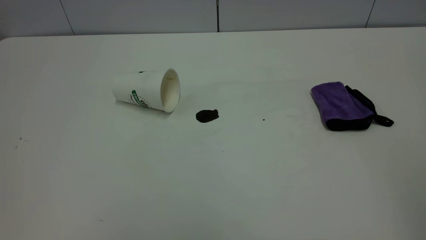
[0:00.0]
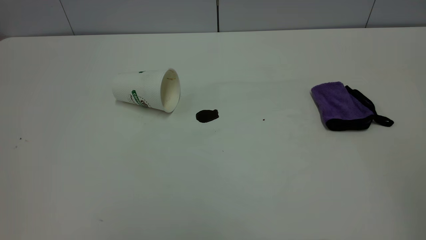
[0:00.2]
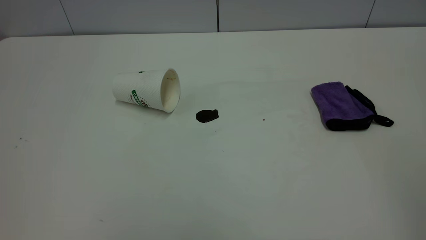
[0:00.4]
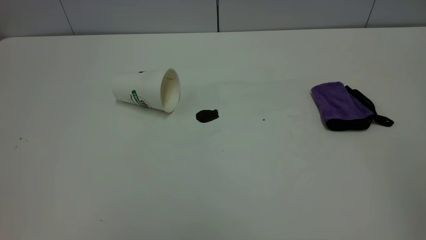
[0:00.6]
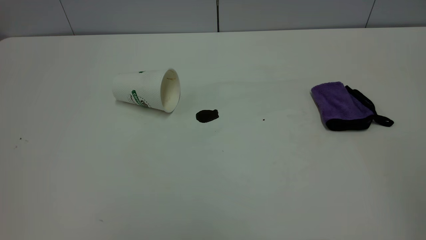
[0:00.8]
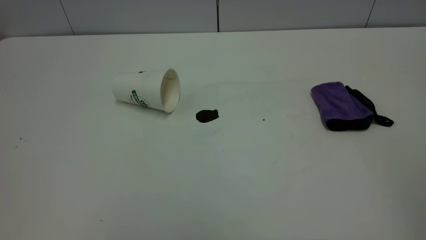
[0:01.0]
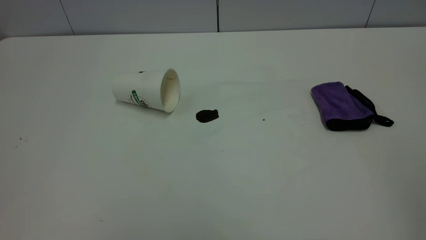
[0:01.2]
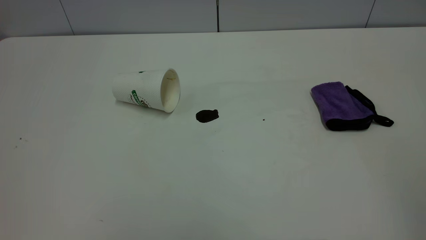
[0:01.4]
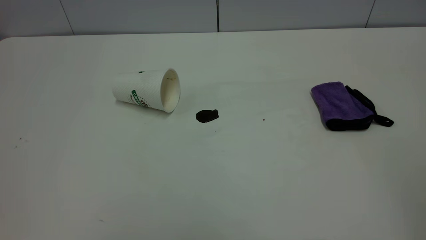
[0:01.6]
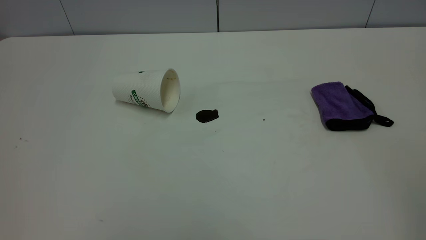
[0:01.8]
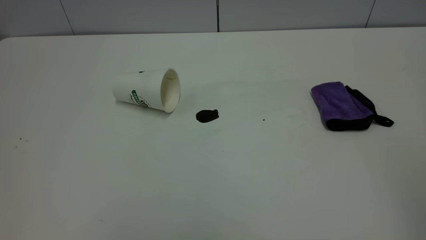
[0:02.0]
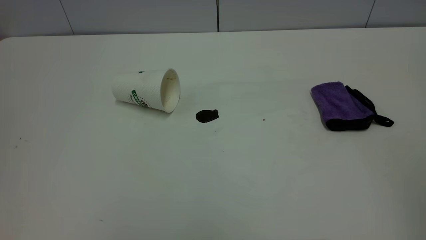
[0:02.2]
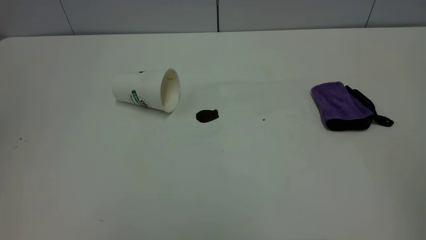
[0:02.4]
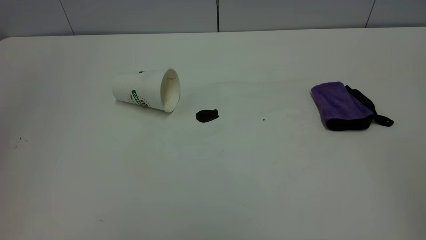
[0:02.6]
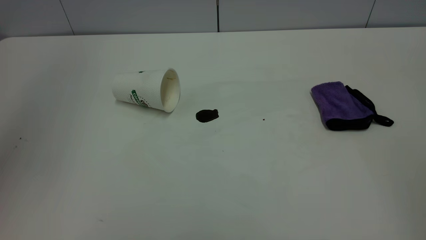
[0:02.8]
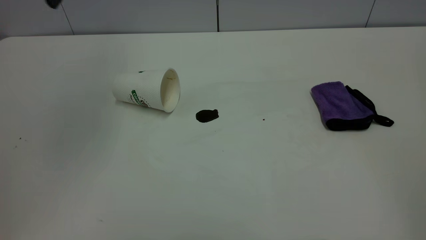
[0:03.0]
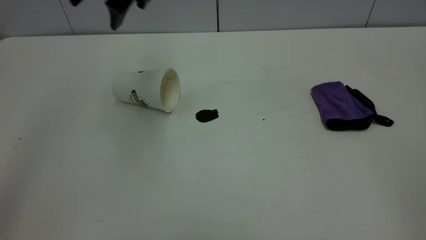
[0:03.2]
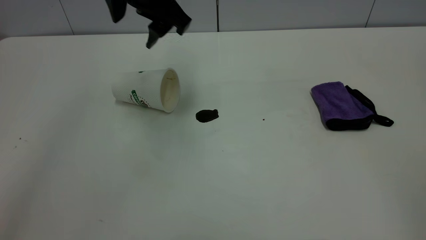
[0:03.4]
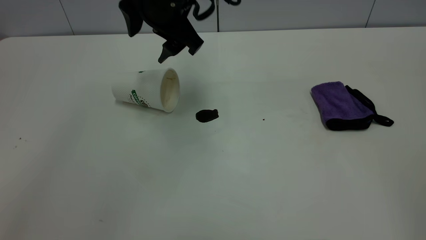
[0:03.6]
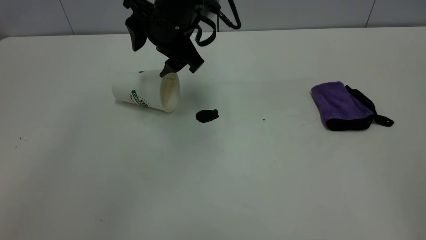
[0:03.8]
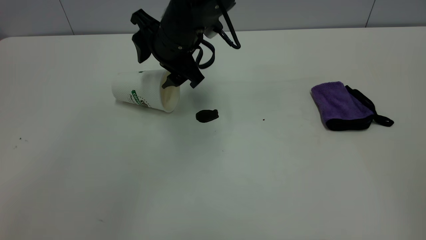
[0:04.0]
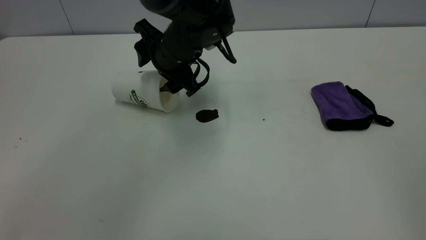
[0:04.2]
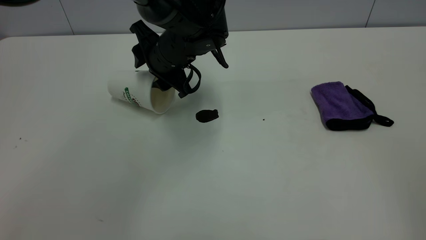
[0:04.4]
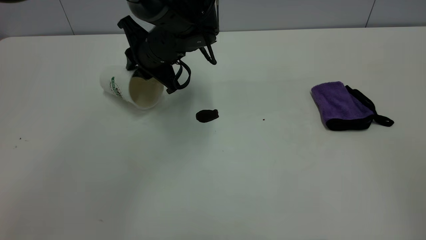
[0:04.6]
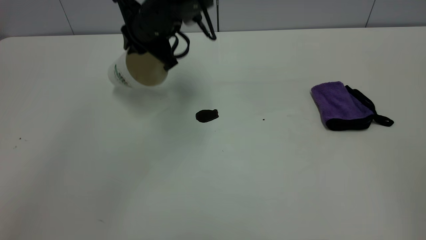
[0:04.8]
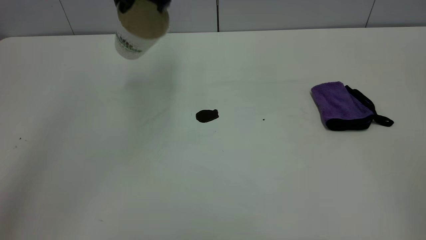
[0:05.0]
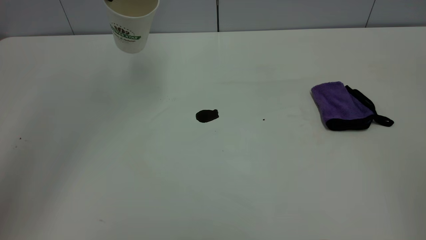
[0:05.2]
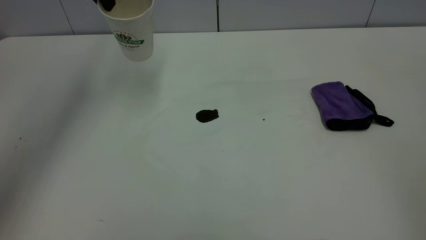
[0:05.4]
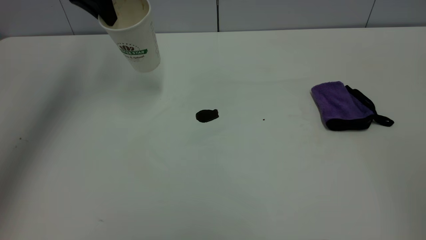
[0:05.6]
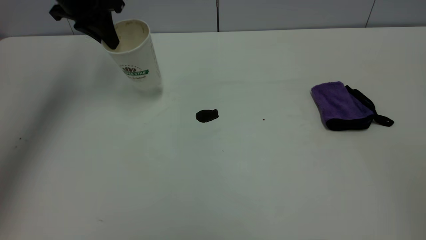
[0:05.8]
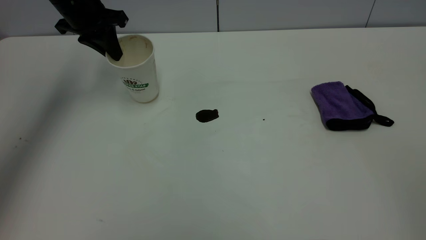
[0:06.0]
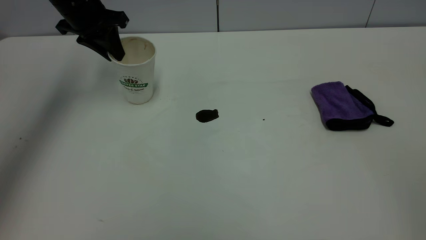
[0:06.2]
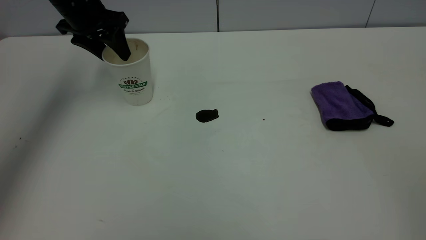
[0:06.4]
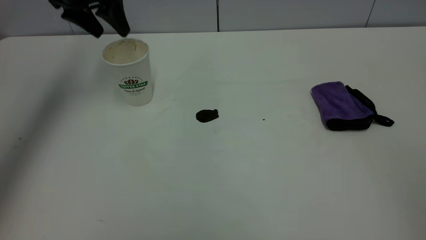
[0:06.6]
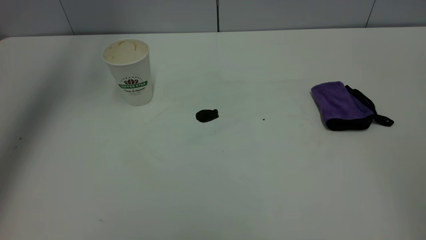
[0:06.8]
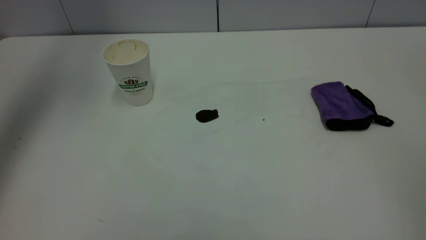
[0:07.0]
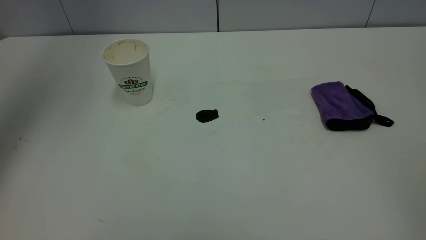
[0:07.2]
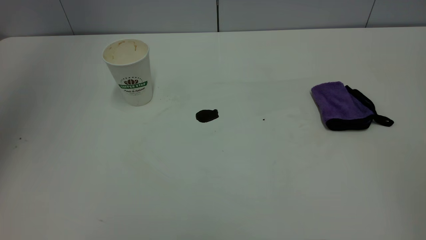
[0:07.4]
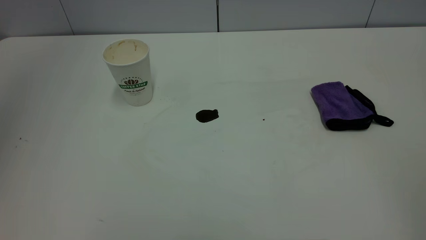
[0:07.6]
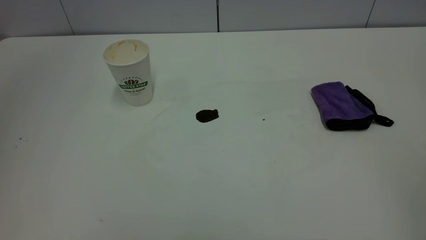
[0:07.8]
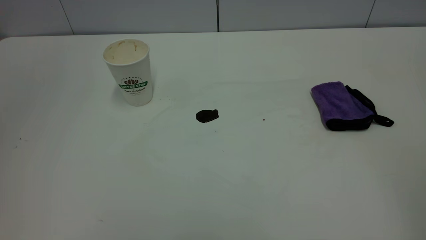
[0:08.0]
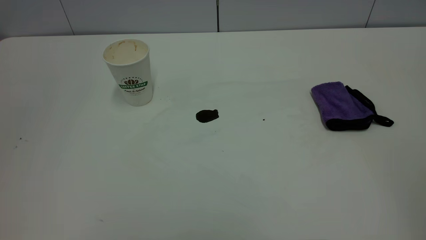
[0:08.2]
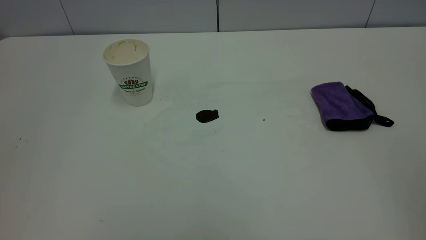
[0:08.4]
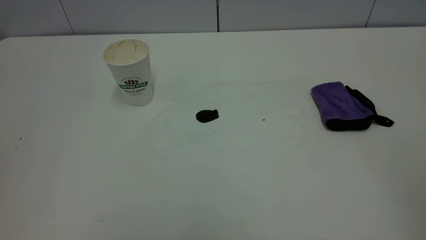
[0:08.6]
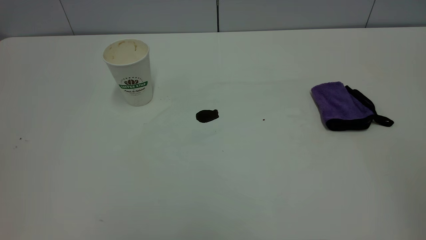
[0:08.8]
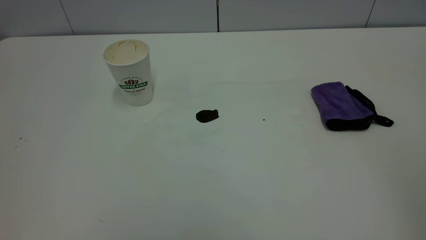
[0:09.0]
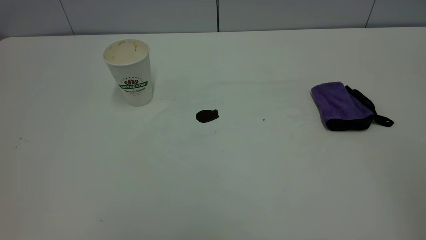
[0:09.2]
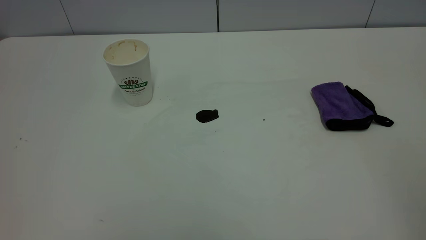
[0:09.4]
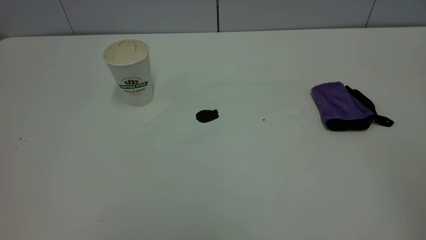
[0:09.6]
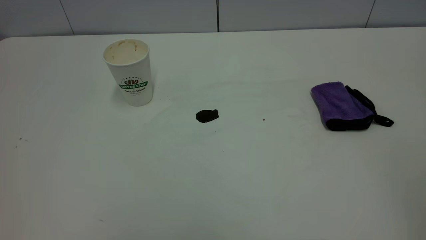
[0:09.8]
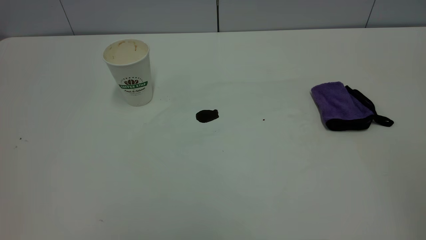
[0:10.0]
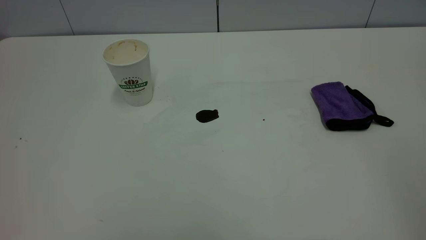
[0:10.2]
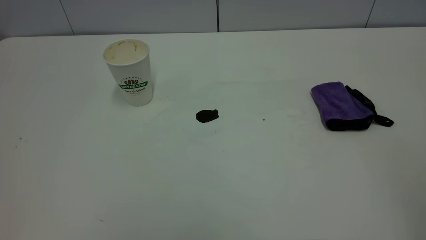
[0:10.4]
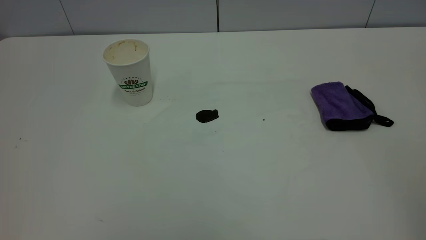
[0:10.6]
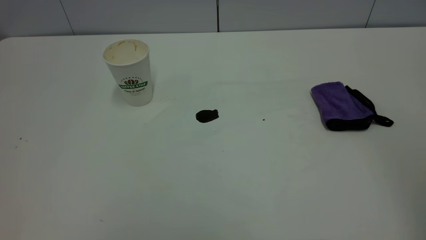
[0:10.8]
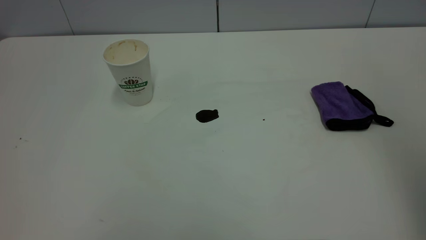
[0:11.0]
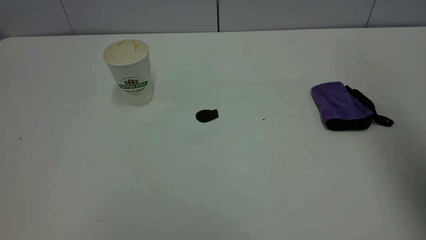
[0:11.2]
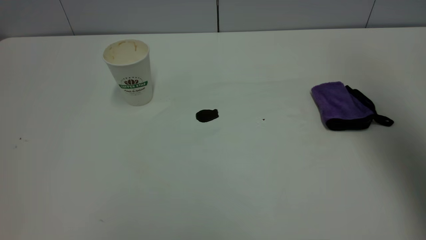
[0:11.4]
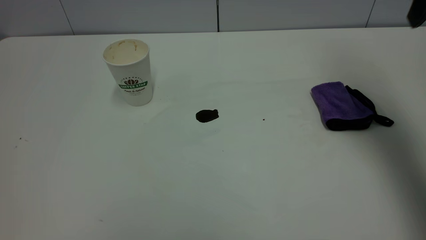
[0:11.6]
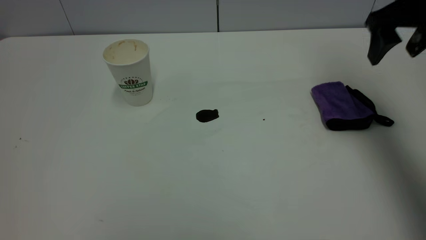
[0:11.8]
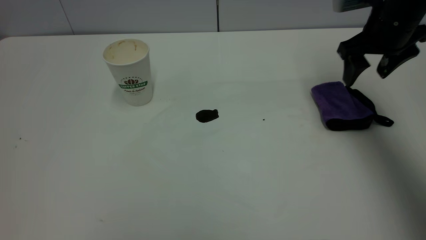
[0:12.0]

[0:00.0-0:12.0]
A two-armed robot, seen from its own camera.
Task of the whole recording: the left gripper pick up the fallen cup and place it upright, the right gripper grasp the purple rag and wipe the coffee stain on the table, the right gripper put the purple rag back in its original position.
Step, 0:00.0 to 0:06.4: Stand the paper cup upright.
0:00.0 to 0:01.6: Both grippers stay about where they are.
0:03.0 to 0:04.4: The left gripper is displaced downward and to the right by about 25 cm, and closes its fingers.
0:04.4 to 0:06.0: The left gripper is displaced to the left and upward by roughly 20 cm, and closes.
0:06.0 to 0:07.6: The left gripper travels upward and backward by roughly 40 cm, and opens, then closes once more.
0:10.4 to 0:12.0: The right gripper heads forward and downward, covering approximately 50 cm, and opens up.

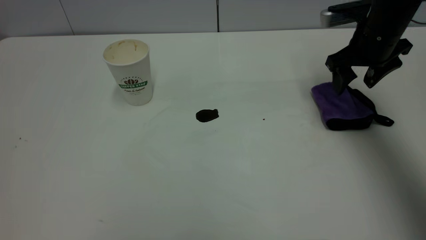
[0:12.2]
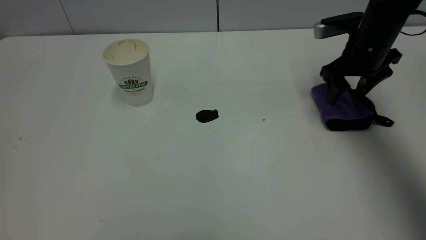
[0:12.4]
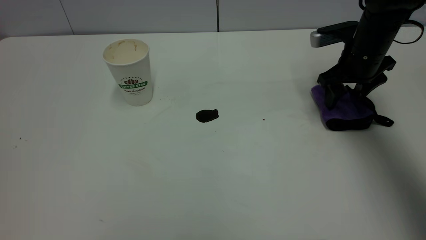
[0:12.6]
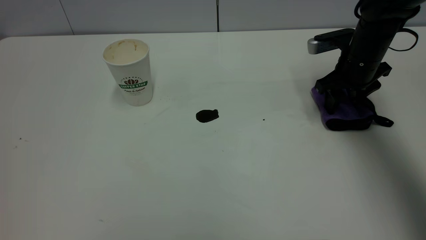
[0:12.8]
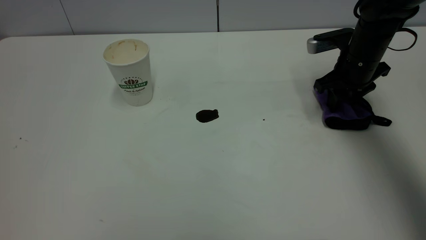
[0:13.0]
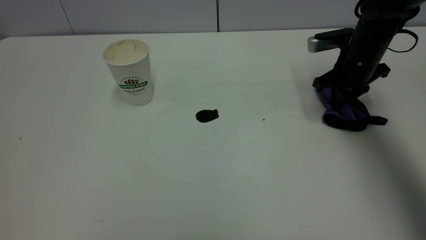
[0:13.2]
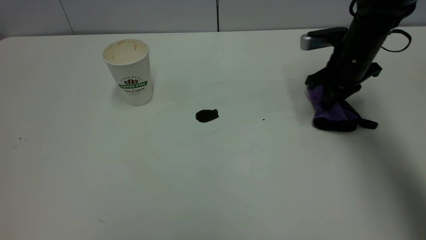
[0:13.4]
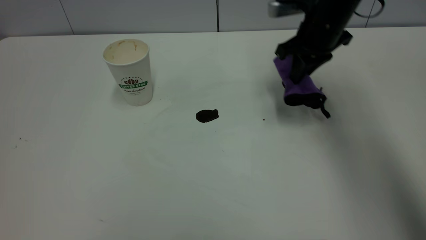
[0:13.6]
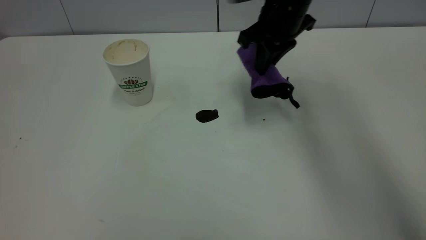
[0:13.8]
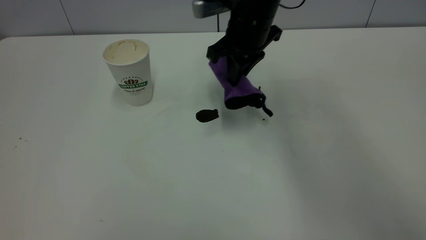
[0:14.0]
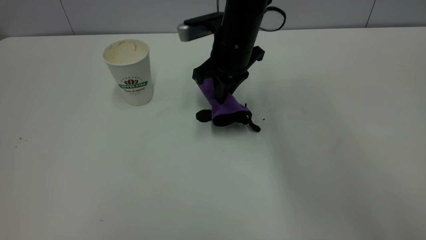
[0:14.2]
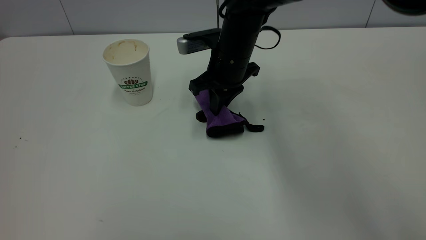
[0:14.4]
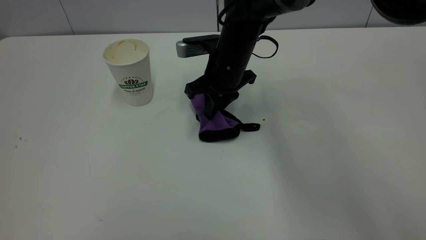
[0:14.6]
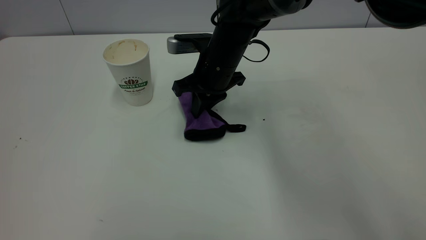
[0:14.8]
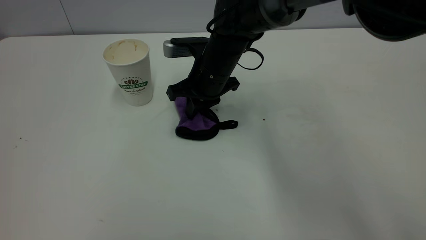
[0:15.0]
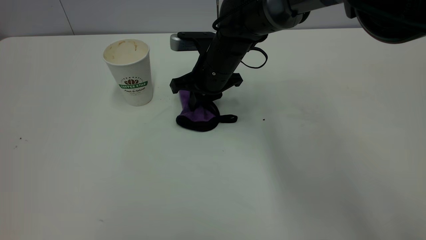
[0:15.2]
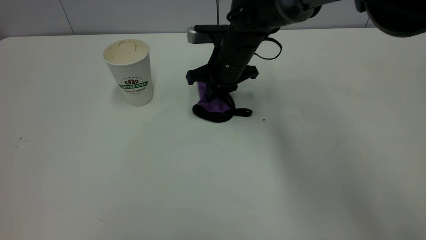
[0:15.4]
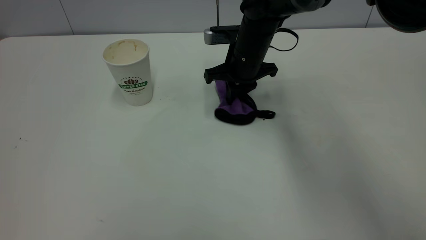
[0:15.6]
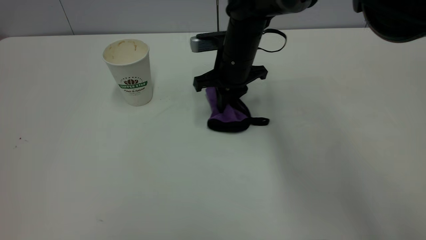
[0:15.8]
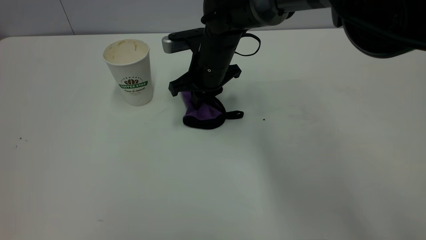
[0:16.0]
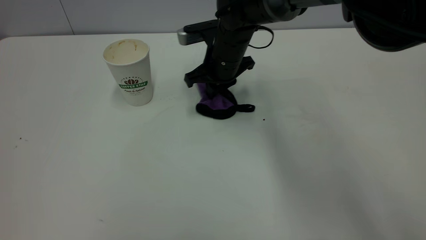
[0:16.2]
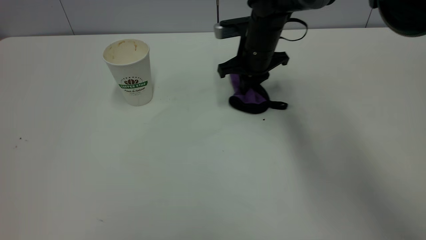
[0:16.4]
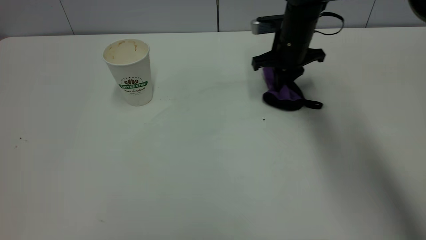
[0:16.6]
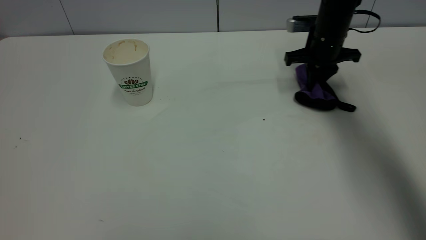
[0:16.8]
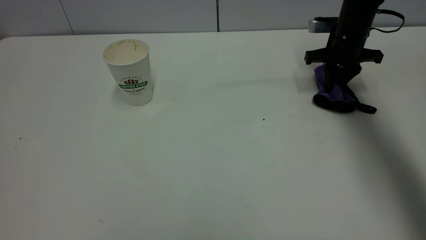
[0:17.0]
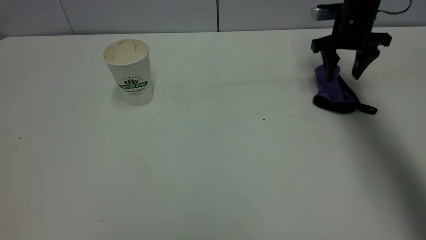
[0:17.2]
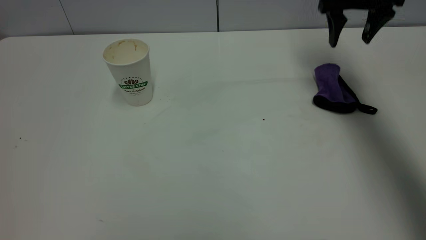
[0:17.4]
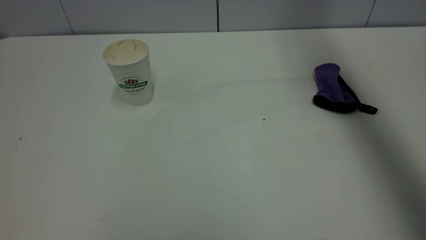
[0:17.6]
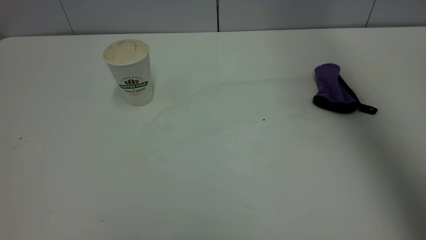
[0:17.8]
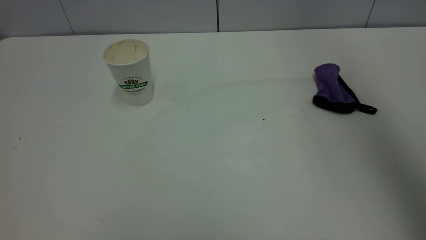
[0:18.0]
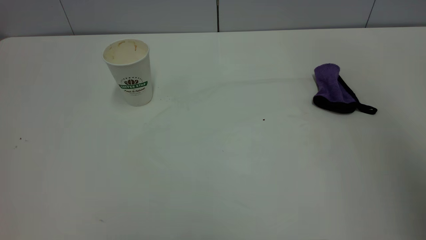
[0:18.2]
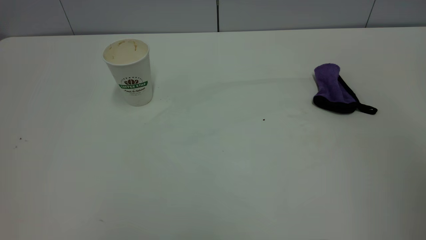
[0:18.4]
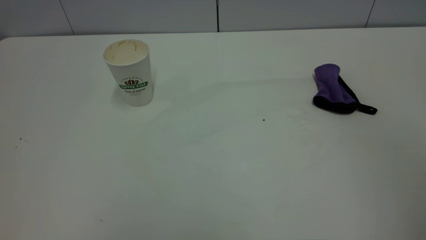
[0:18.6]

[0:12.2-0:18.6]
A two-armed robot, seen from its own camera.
Task of the whole recording: the left gripper pick up the fallen cup and place it upright, the right gripper grasp the purple rag and wipe the coffee stain on the table, the right gripper put the purple rag back in its original position.
Step, 0:12.2 to 0:17.2: Wipe the stains off the table with a rag.
0:12.2 to 0:13.8: The right gripper shifts roughly 15 cm to the left, and closes up.
0:13.8 to 0:15.4: The right gripper goes approximately 10 cm downward and to the left.
0:15.4 to 0:17.0: The right gripper moves to the right, about 20 cm.
0:17.0 to 0:18.6: The right gripper heads backward and upward, covering roughly 50 cm, and opens.
